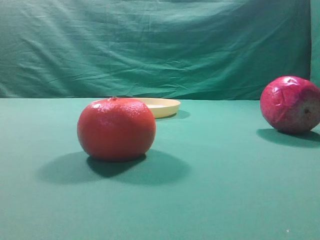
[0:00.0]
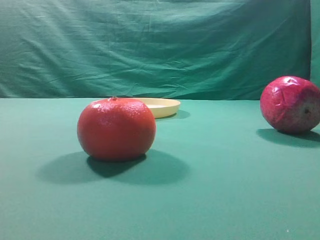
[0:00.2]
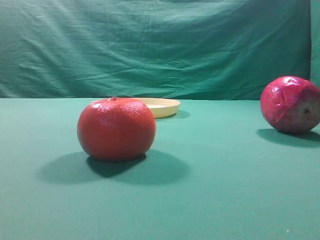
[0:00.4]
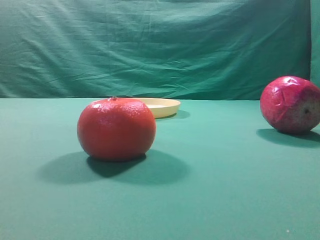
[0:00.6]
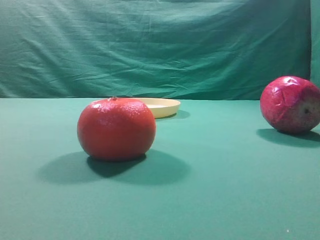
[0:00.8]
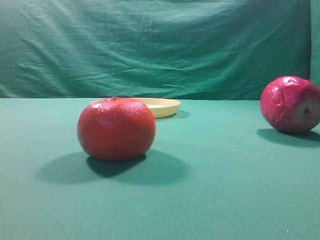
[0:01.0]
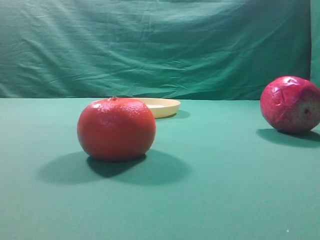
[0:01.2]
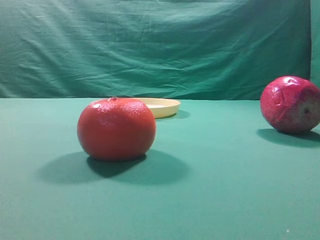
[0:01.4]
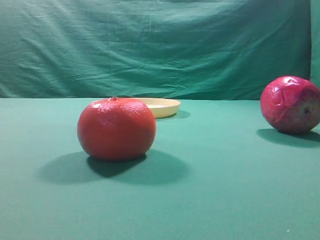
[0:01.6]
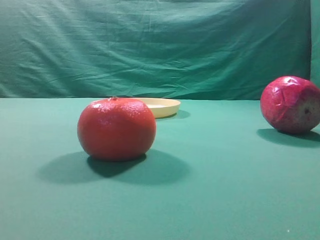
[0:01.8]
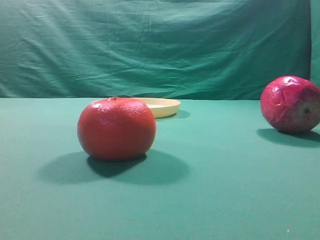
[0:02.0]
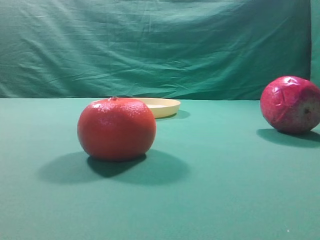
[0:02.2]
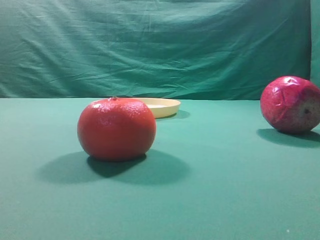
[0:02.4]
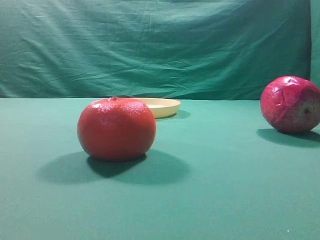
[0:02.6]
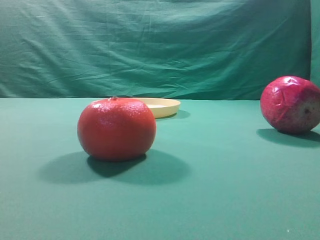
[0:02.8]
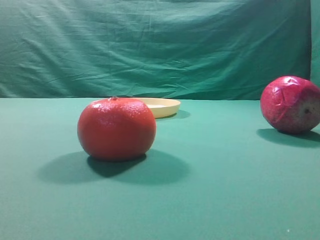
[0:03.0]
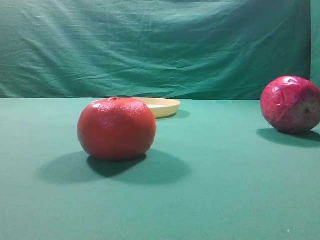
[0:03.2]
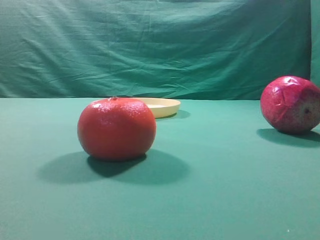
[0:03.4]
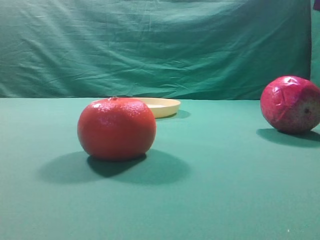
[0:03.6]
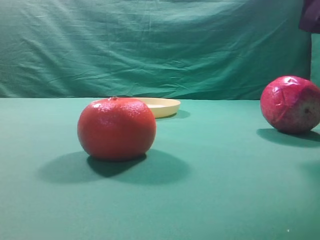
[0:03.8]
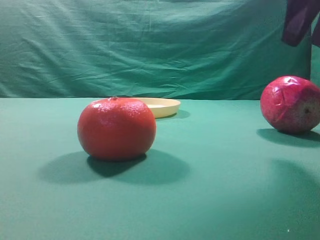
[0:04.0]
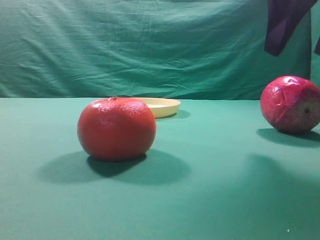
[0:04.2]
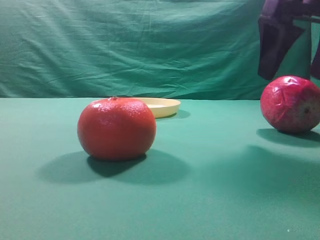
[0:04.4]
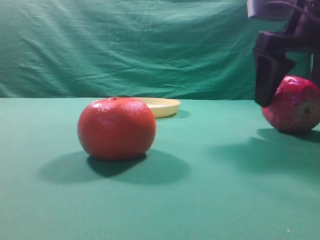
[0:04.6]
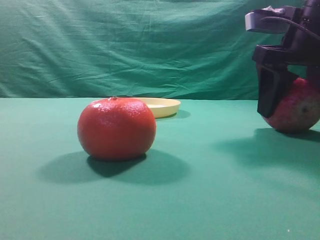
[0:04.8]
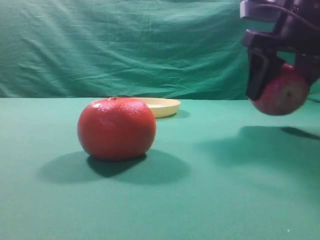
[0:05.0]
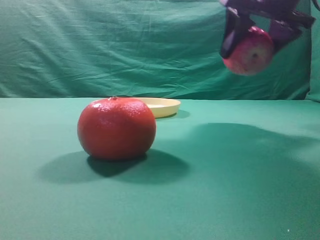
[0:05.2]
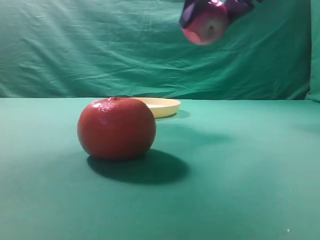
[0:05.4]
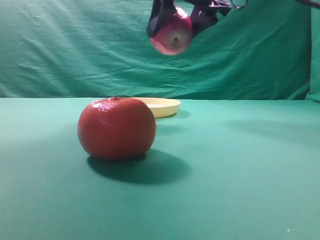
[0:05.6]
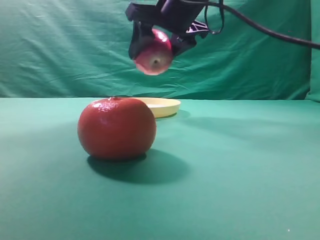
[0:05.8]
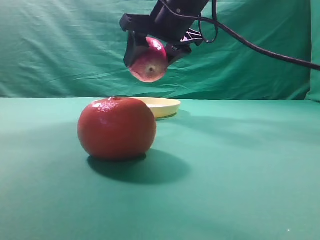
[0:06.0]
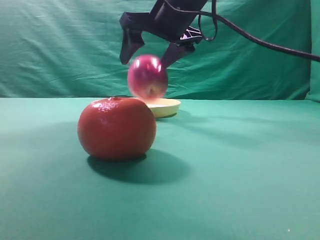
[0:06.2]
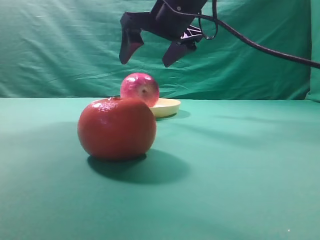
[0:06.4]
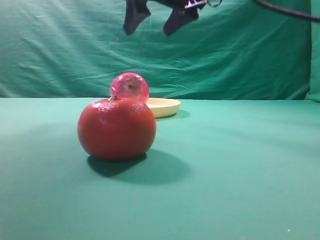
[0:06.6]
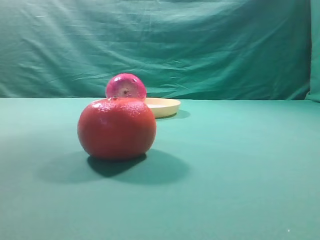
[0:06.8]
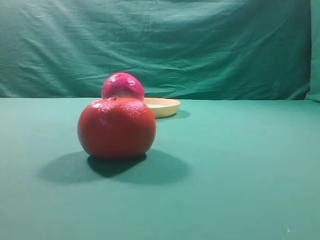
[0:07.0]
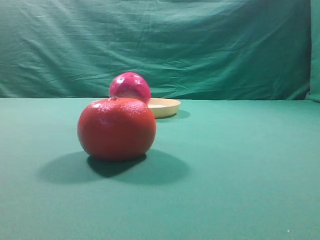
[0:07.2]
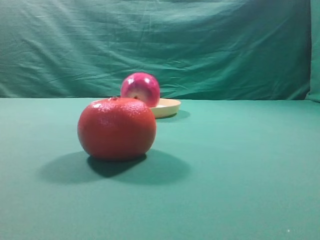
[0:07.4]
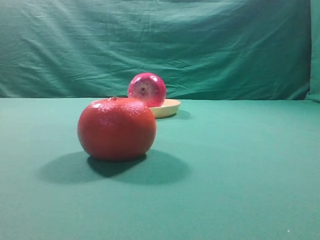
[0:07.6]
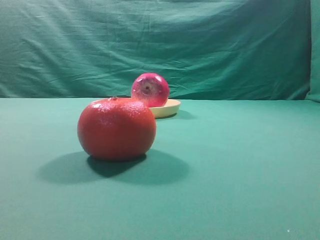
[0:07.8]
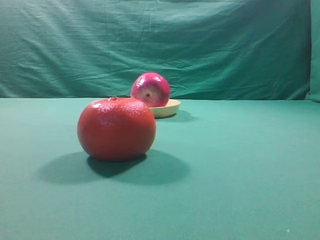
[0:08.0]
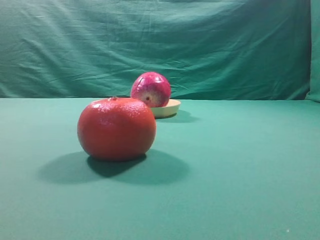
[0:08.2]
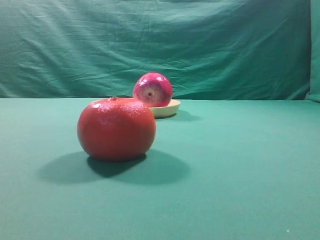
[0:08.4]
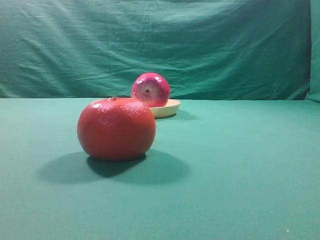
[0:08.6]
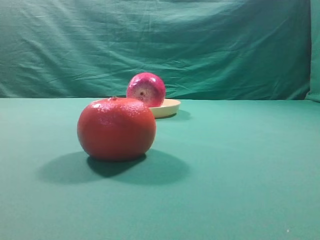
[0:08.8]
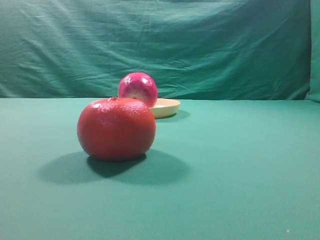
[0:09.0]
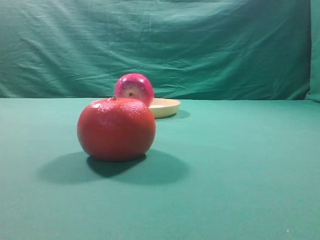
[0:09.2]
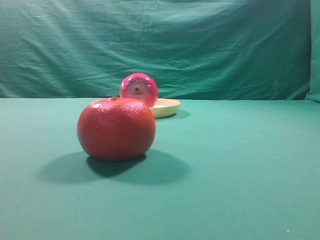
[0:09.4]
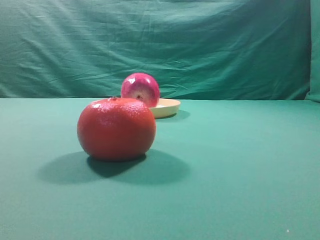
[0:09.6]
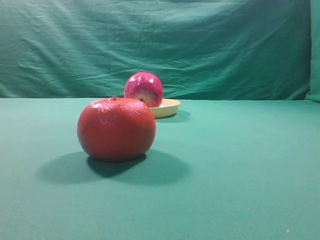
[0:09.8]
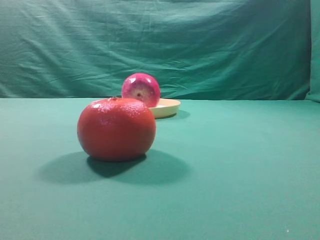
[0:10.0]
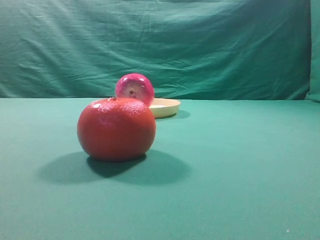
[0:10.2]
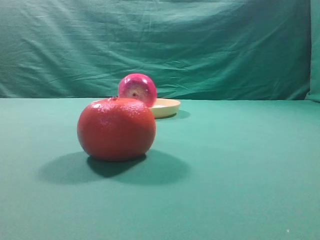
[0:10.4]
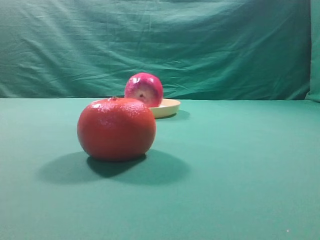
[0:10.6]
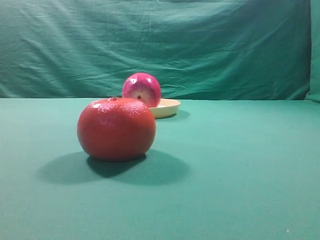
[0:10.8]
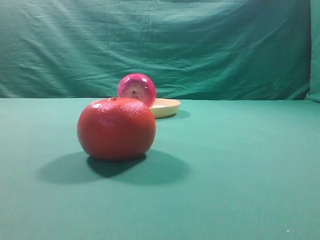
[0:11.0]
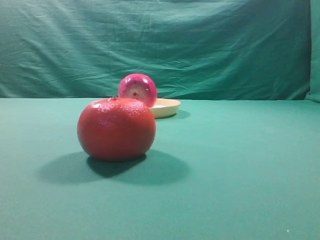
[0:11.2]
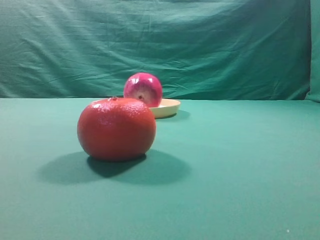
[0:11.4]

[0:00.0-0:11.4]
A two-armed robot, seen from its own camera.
Task of the whole recording: grasp the apple and place it into the yellow plate.
Step, 0:00.0 to 0:04.8: Grasp the fruit that can keep the doctor away.
Step, 0:05.2 to 0:06.2: Place the picked object into the yellow plate.

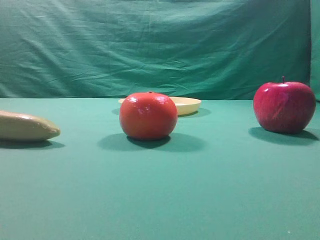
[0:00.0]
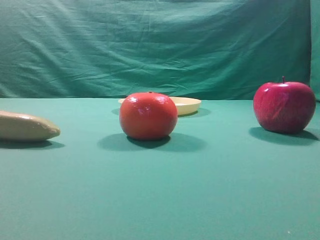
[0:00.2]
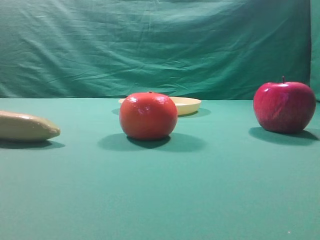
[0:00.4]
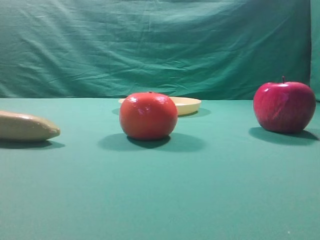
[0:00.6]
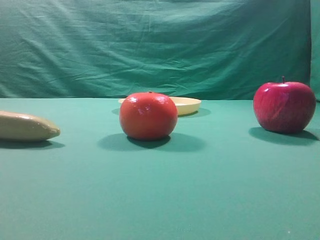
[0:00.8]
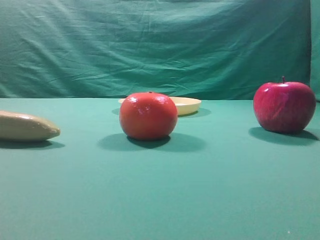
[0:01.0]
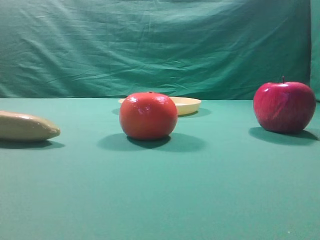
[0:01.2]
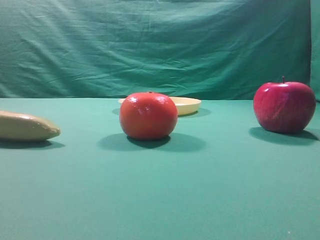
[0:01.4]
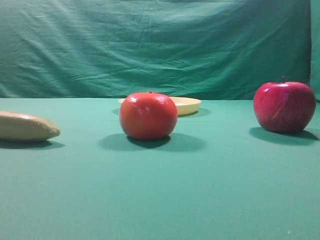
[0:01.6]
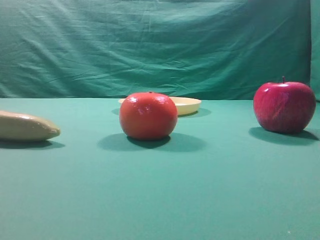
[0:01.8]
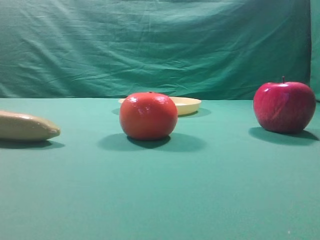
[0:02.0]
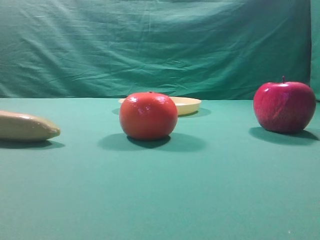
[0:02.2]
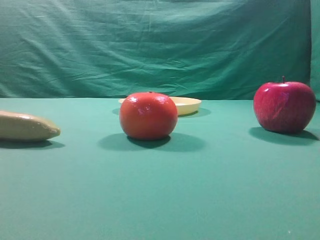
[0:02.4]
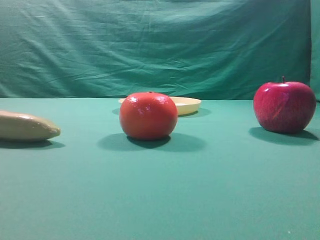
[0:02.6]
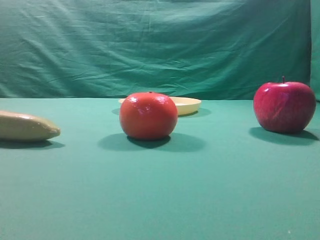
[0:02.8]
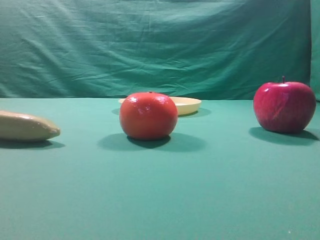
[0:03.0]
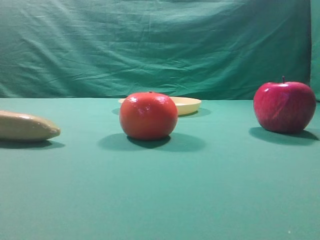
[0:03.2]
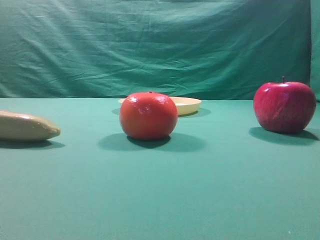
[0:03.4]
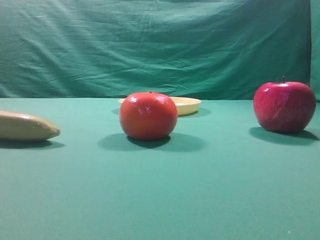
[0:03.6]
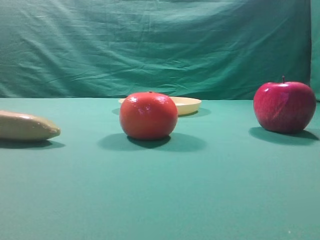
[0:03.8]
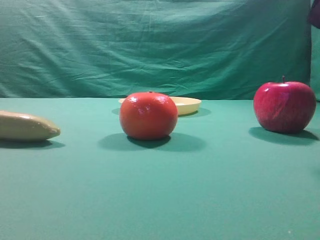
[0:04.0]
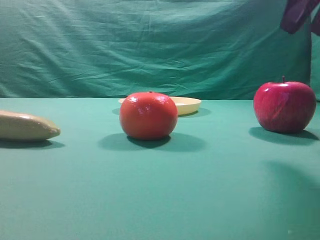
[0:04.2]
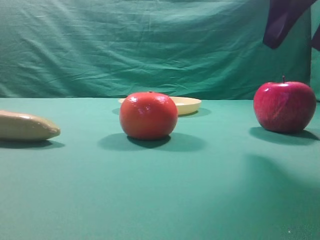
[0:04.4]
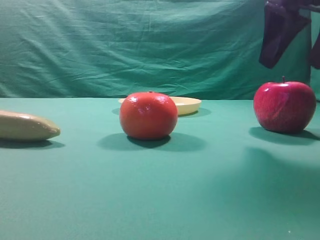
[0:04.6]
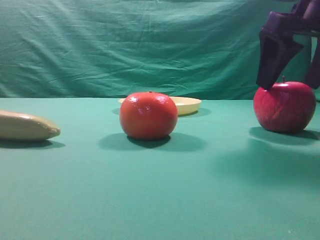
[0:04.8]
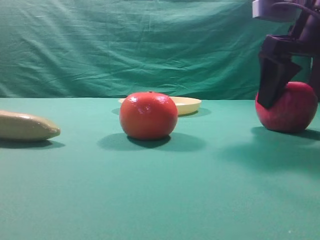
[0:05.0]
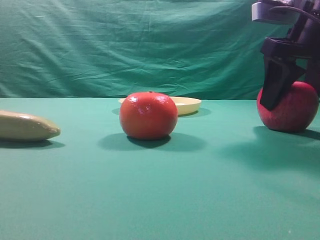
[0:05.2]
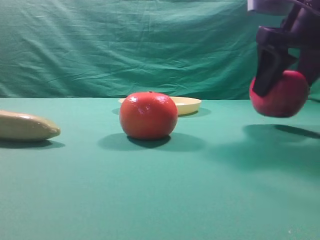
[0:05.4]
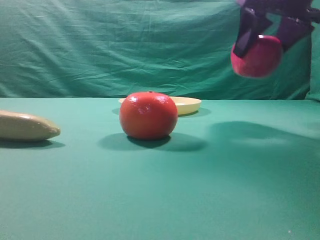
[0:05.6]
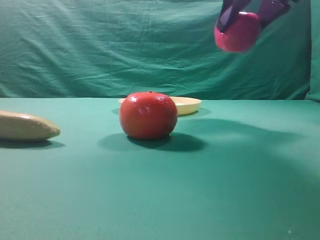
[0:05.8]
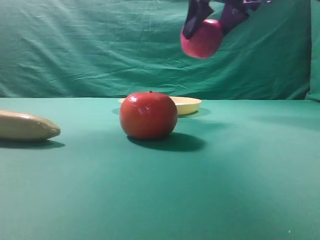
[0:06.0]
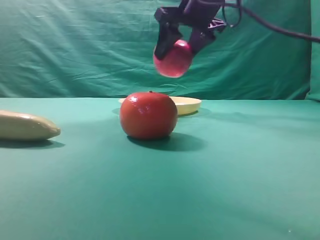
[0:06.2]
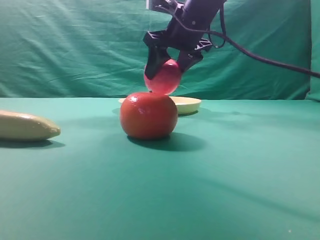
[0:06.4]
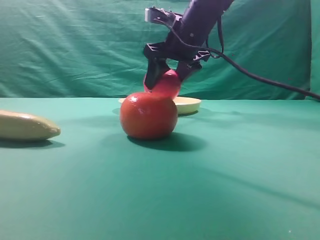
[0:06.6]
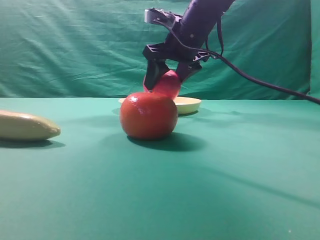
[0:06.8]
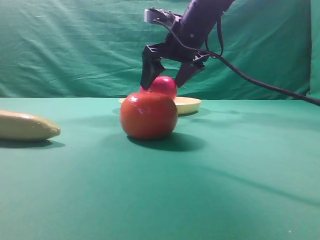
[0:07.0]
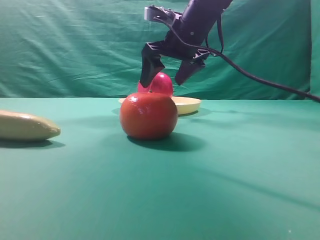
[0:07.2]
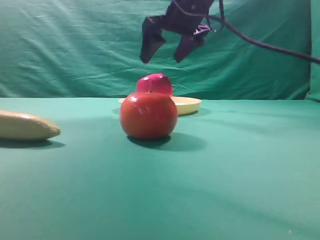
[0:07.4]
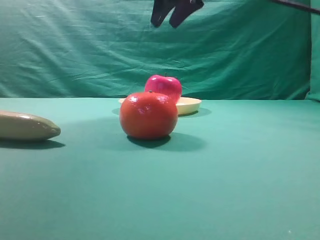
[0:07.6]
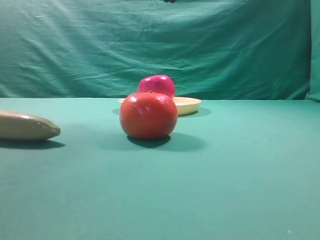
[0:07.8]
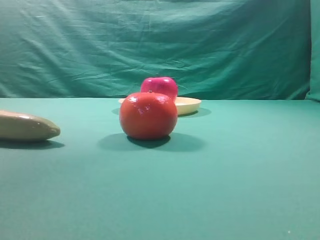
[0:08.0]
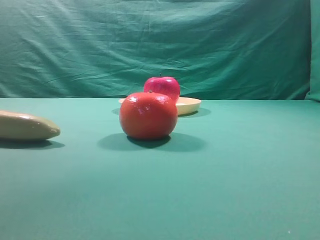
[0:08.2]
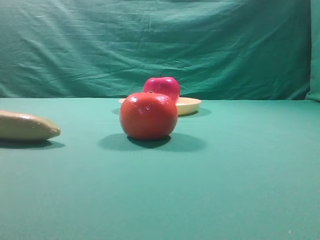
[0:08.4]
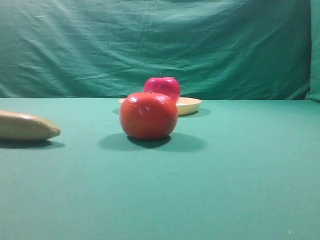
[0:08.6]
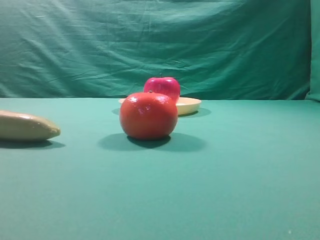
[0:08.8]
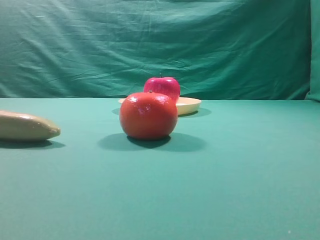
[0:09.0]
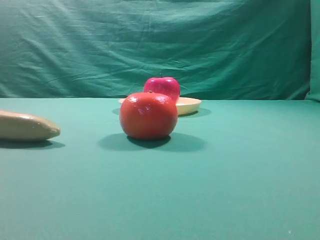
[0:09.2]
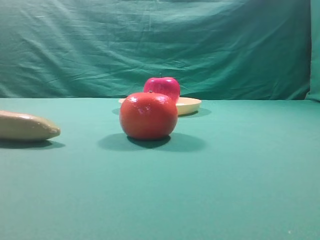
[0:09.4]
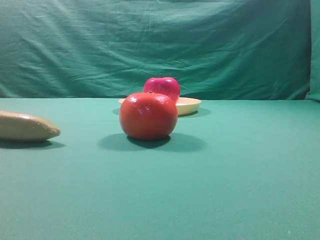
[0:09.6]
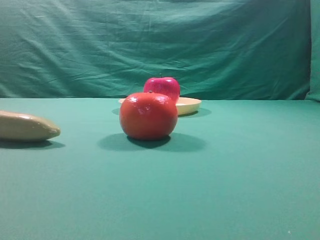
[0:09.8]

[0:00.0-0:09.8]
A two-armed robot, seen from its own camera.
Task of the whole recording: grasp the apple and place it into the yellow plate.
Step, 0:00.0 to 0:05.4: Grasp the fruit that can keep the doctor away.
Step, 0:05.6 to 0:07.2: Place the picked object into the yellow plate.
